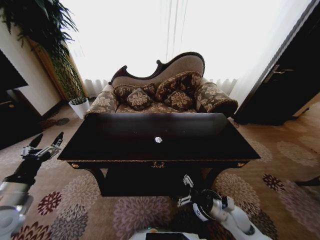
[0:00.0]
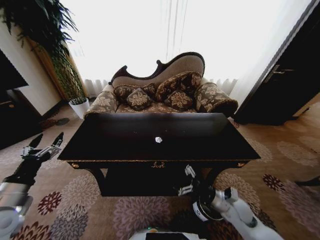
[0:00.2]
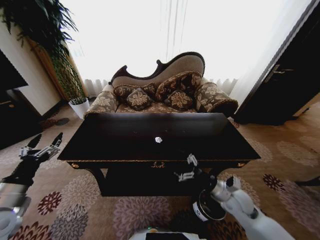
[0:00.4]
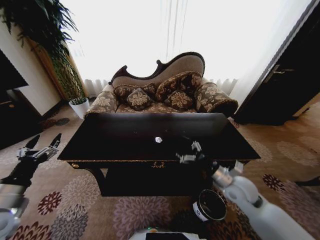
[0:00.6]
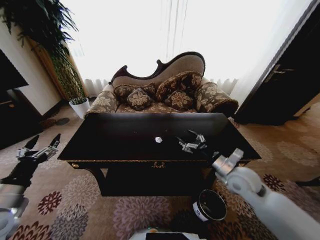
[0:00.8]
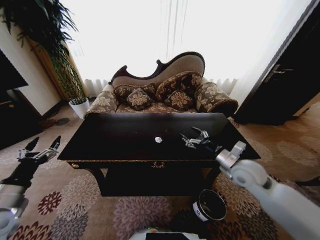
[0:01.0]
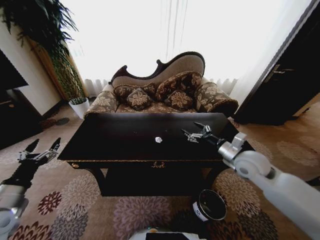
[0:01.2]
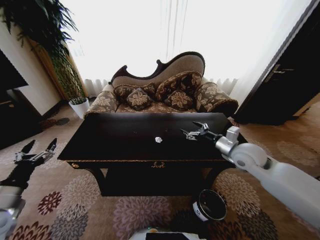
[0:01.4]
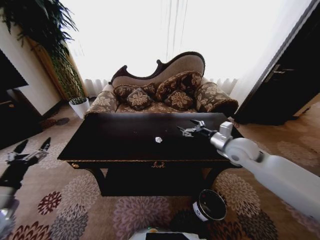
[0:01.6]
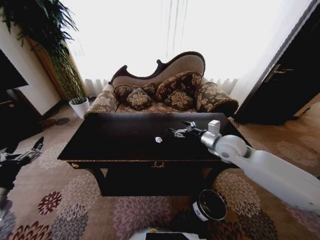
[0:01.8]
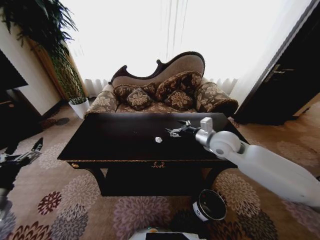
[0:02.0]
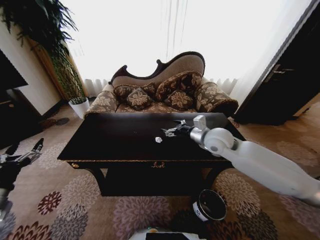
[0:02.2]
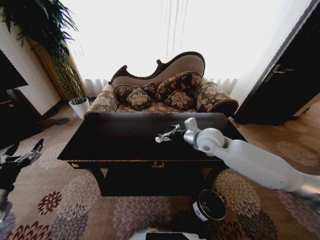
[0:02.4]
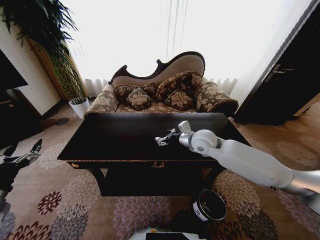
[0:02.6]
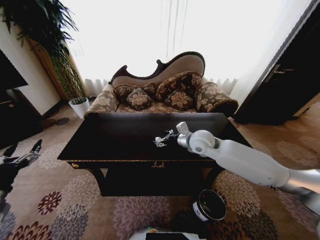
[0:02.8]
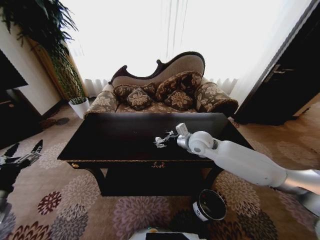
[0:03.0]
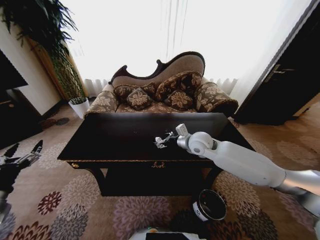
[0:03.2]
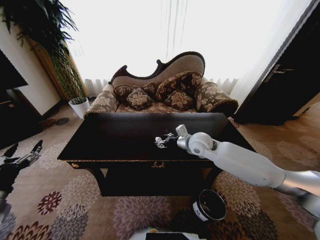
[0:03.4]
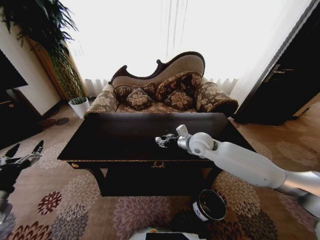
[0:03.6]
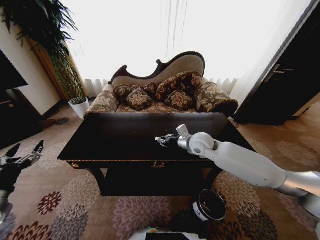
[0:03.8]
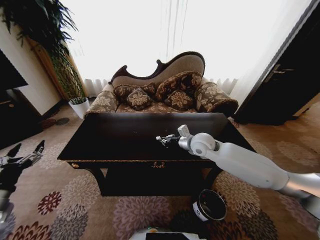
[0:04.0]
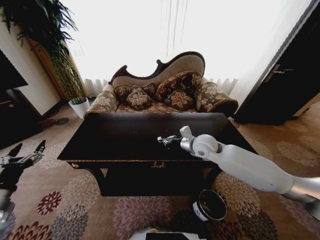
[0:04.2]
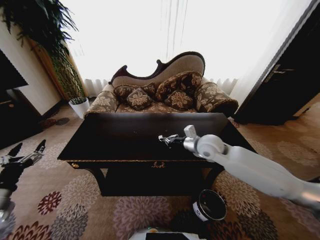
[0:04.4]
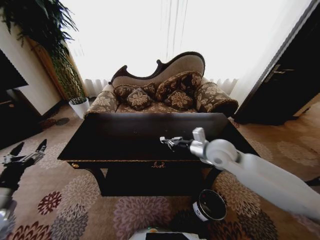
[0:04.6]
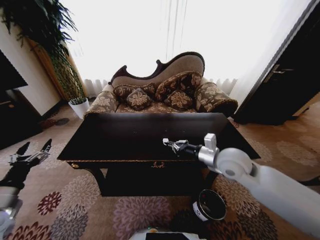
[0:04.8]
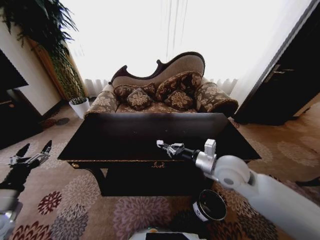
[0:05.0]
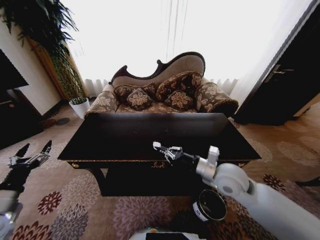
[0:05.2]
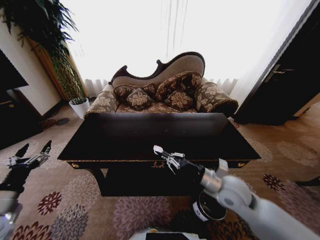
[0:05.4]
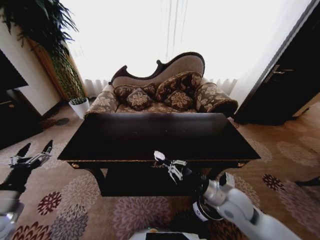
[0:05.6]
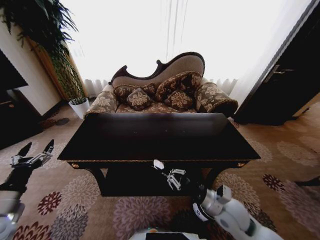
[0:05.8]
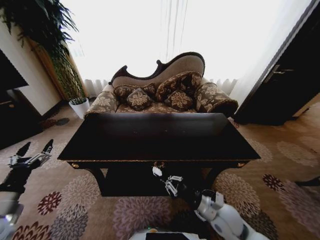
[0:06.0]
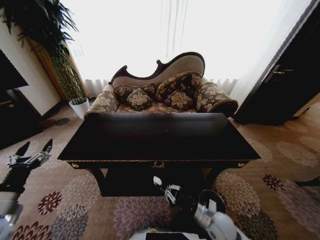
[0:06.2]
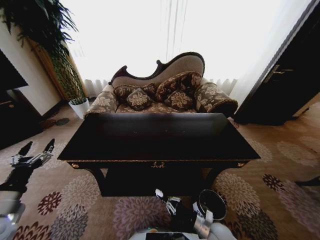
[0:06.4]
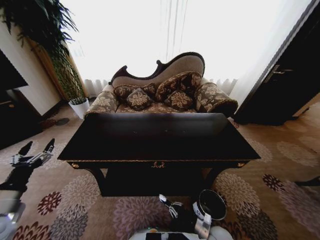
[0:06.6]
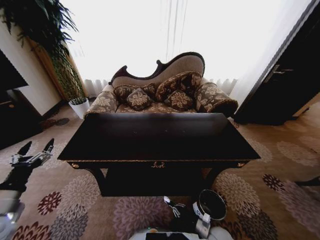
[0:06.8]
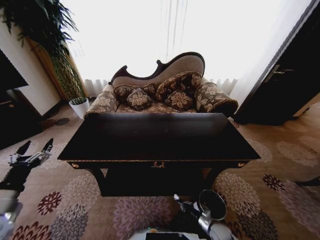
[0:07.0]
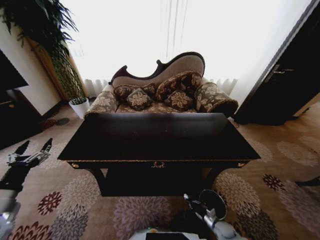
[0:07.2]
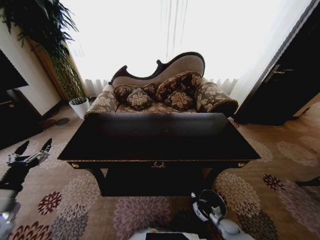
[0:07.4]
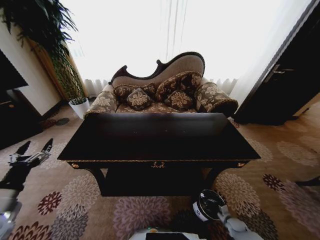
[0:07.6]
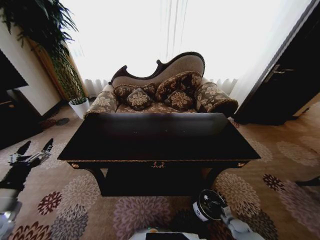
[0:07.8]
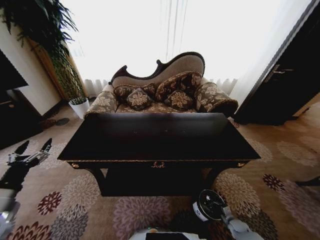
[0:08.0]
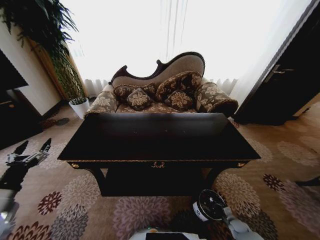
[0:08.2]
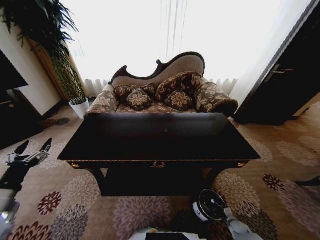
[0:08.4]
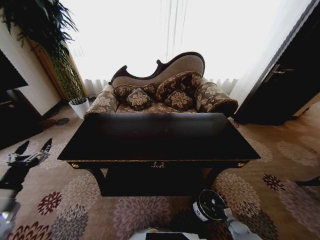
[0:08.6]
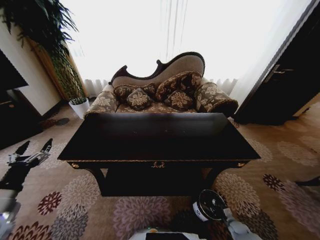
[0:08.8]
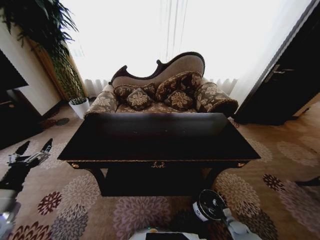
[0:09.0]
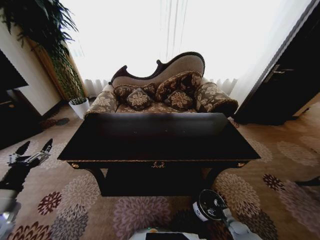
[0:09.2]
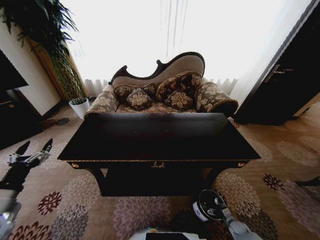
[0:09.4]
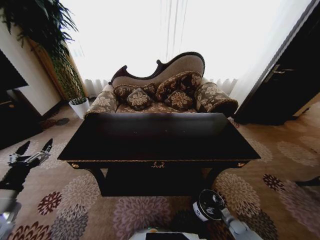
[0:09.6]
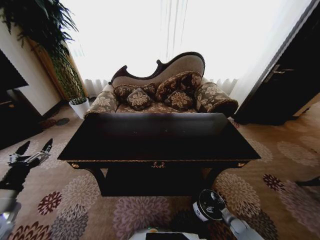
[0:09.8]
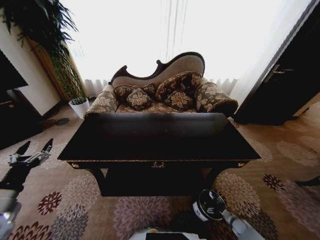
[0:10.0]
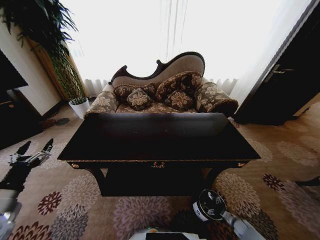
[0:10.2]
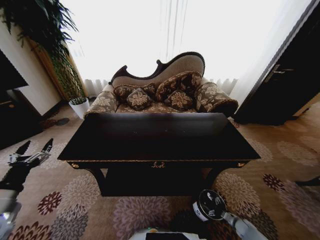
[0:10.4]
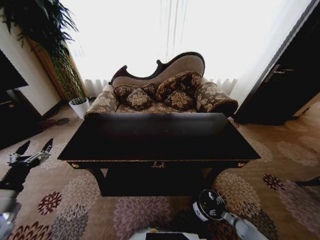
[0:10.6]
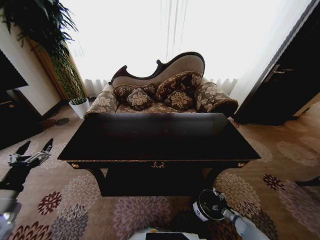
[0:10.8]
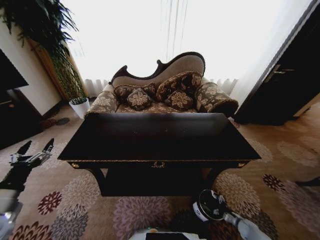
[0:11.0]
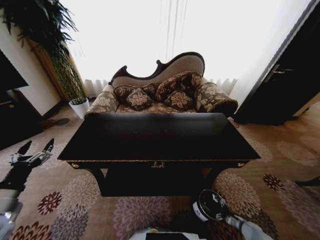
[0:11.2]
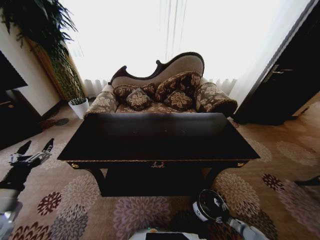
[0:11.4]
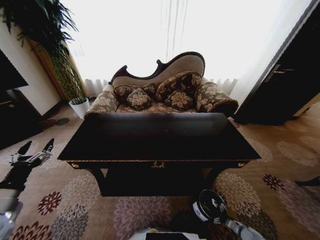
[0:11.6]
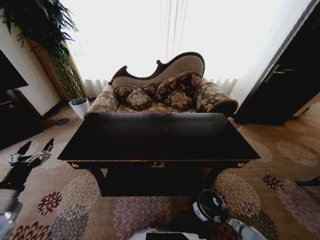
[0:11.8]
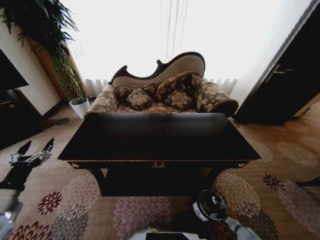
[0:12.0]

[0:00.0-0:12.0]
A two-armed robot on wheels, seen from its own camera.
Task of the whole recording: Move to the front of the table and place the trash on the table into the trash bin.
0:00.0 to 0:01.6: The left gripper moves about 5 cm; the right gripper travels upward and forward by approximately 30 cm.
0:01.6 to 0:03.0: The right gripper goes approximately 15 cm to the left and forward.
0:03.0 to 0:04.4: The right gripper closes.
0:04.4 to 0:06.0: The right gripper is displaced backward and downward by about 25 cm.
0:06.0 to 0:07.6: The right gripper moves downward and to the right, about 40 cm.
0:09.0 to 0:10.4: The right gripper opens its fingers.
0:10.4 to 0:12.0: The grippers make only small movements.

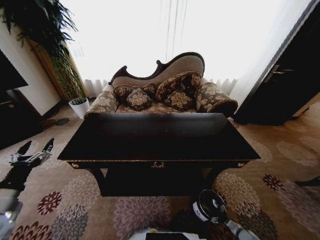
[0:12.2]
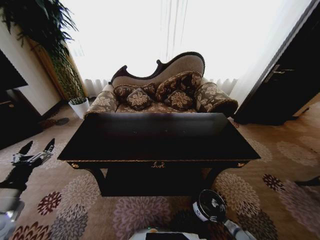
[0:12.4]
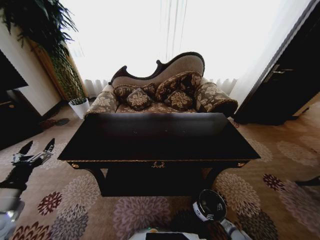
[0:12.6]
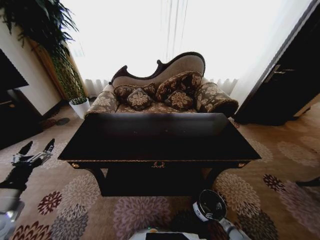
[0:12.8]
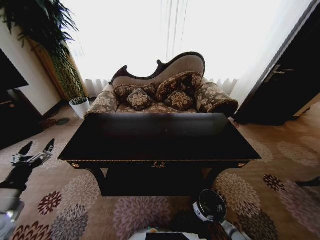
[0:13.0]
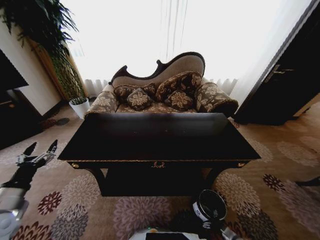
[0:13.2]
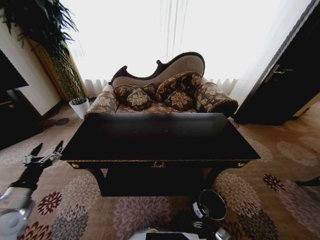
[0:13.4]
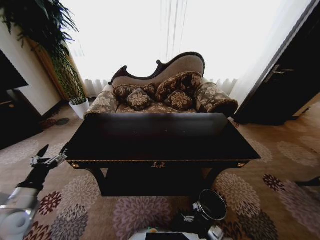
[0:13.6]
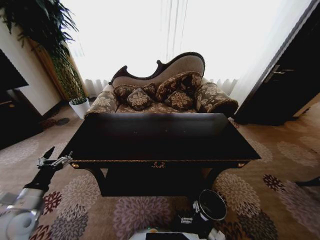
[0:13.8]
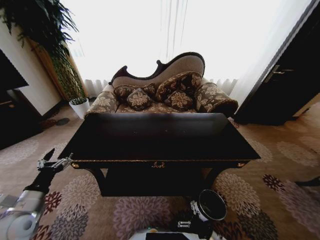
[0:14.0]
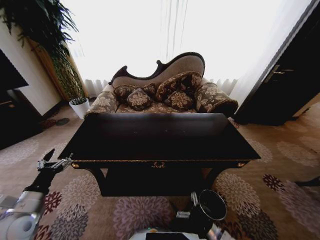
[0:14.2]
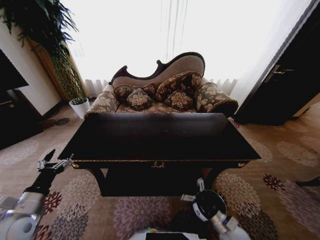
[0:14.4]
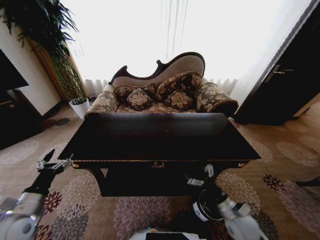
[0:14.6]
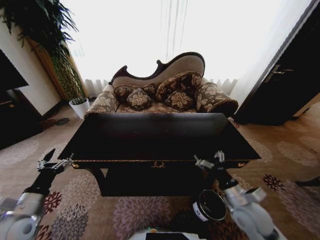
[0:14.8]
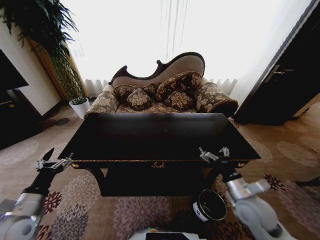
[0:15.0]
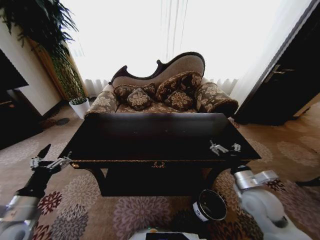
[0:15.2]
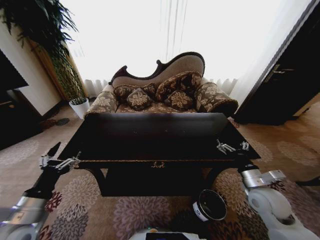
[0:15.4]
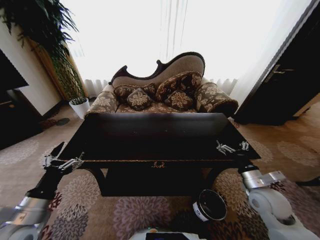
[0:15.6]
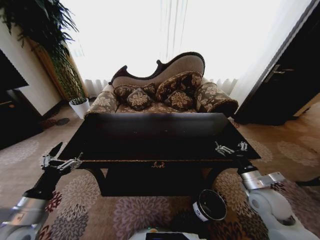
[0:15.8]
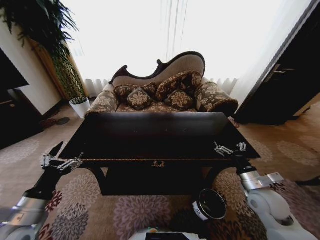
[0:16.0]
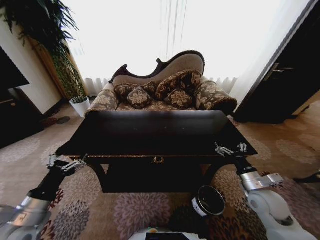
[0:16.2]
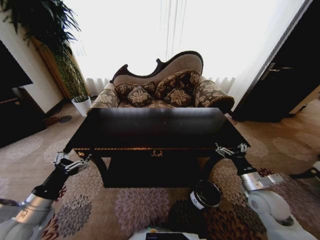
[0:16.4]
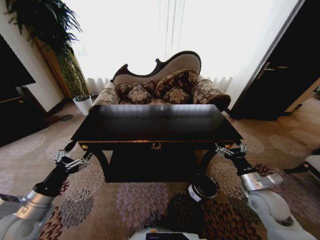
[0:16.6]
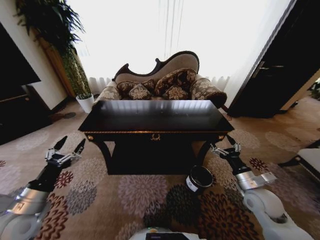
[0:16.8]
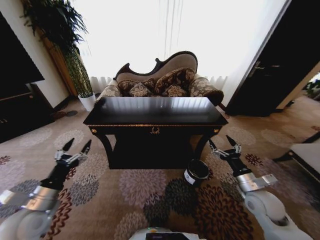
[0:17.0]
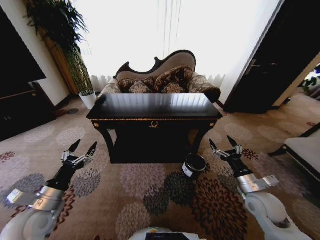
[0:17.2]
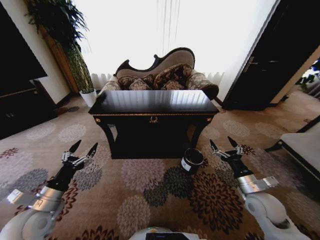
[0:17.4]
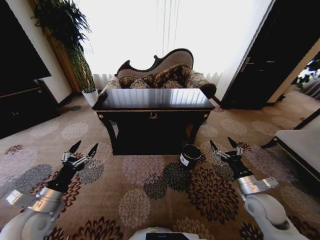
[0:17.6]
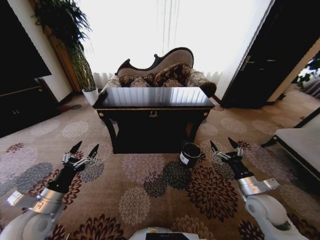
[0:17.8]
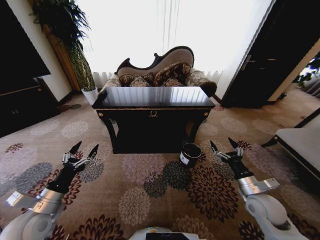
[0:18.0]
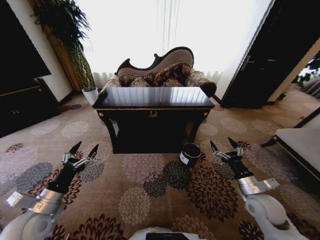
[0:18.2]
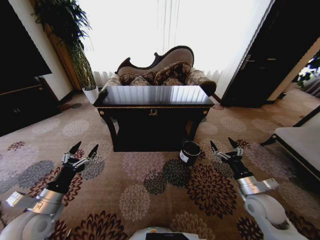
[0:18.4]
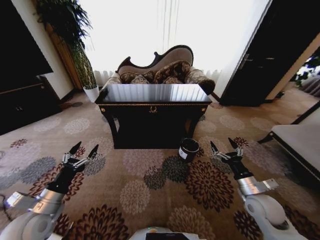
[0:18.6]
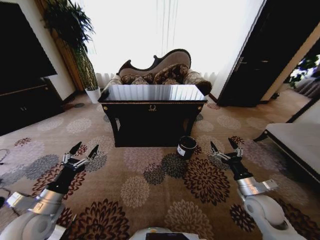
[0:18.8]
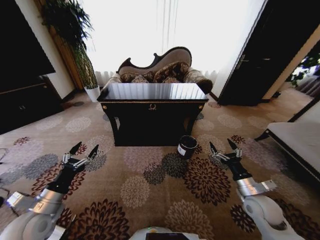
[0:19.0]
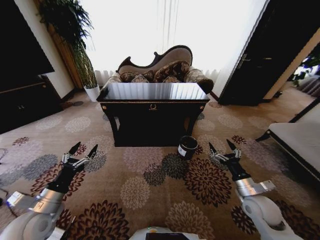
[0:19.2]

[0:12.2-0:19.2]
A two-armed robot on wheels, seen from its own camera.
Task of the whole recording: Move to the front of the table and place the trash on the table into the trash bin.
0:12.2 to 0:13.6: The right gripper travels to the left by approximately 15 cm.
0:13.6 to 0:15.0: The right gripper is displaced upward by some 35 cm.
0:15.0 to 0:16.4: The right gripper shifts about 5 cm to the right.
